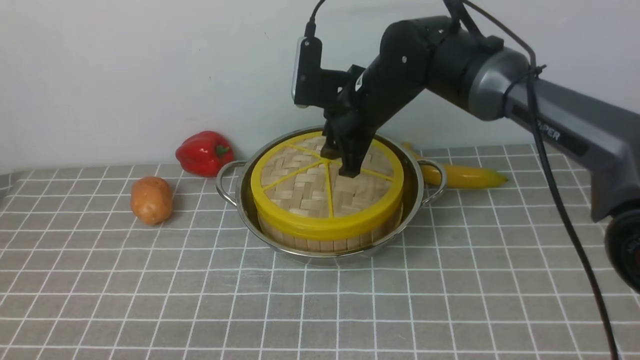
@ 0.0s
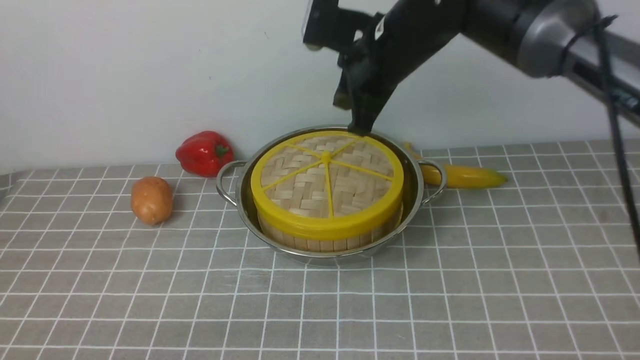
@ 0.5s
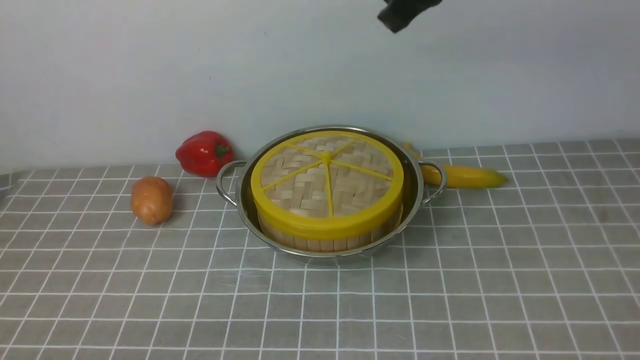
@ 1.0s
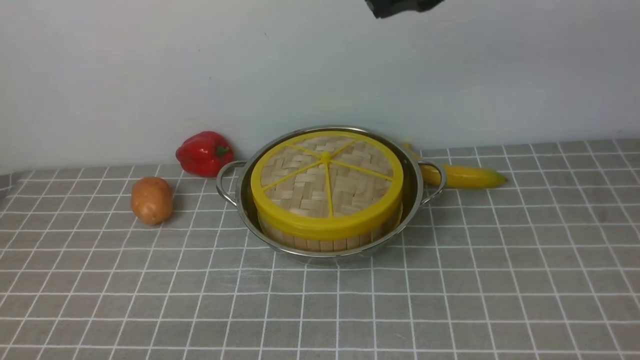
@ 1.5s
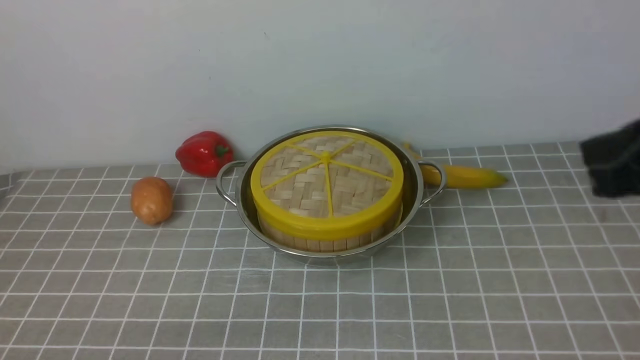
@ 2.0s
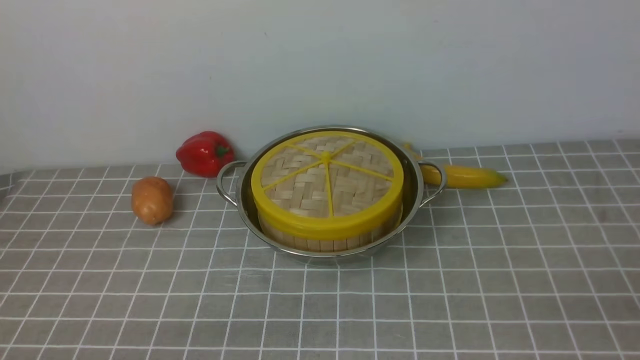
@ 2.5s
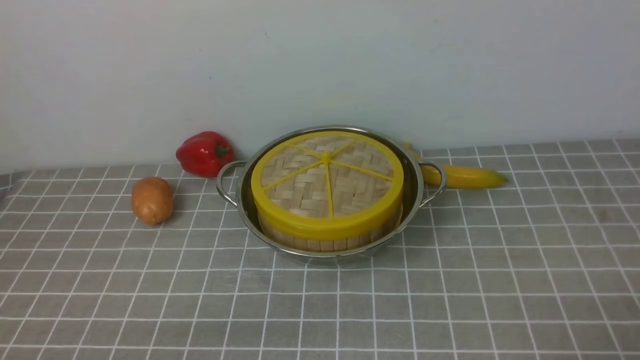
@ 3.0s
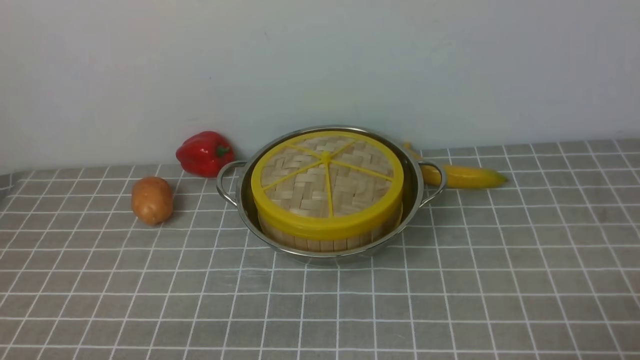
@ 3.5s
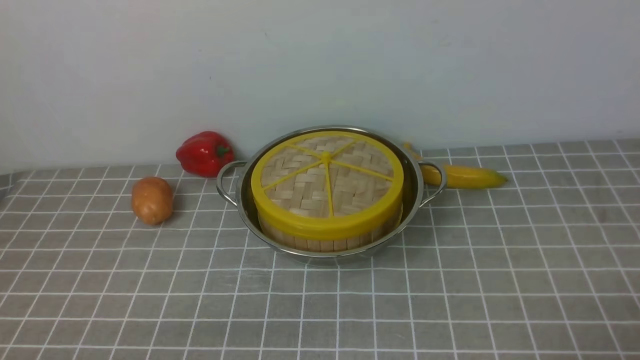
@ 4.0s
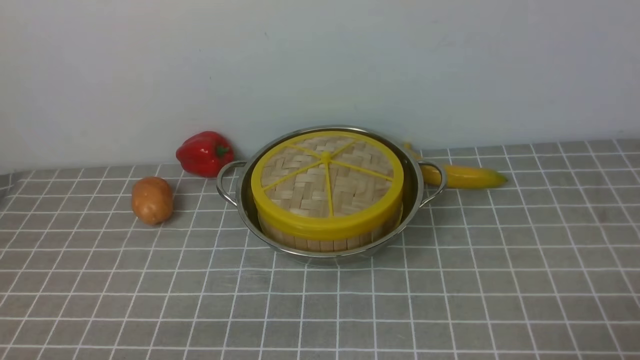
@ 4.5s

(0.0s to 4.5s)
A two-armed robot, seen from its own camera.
Task of the whole recording: place the steamer in the pot on the grey tablecloth, and put the lid on the steamer.
0.0s - 2.0s: The right gripper shifts roughly 35 cm backward, to the right and upward, and closes.
2.0s - 4.5s: The right gripper moves downward and backward, roughly 20 cm, and opens its fingers.

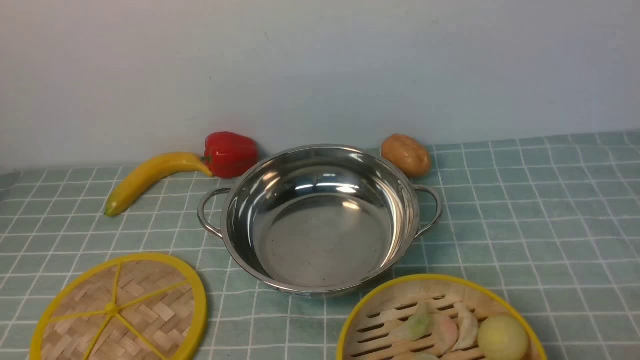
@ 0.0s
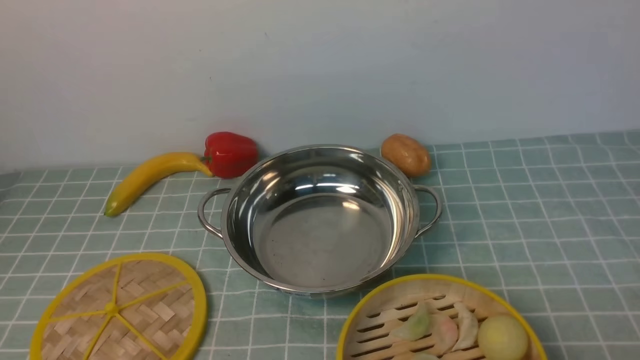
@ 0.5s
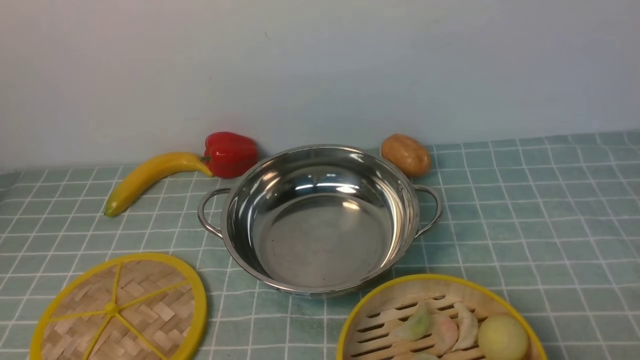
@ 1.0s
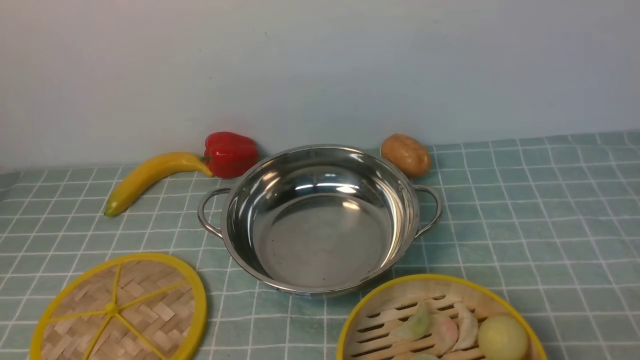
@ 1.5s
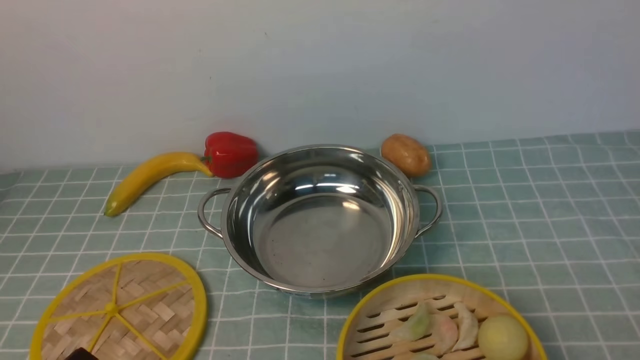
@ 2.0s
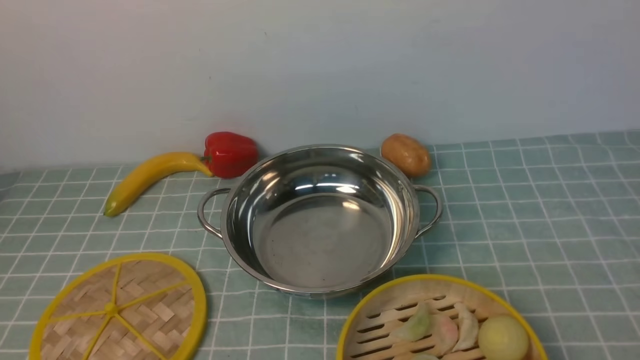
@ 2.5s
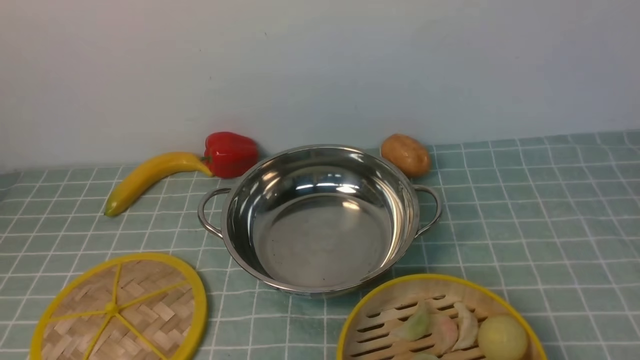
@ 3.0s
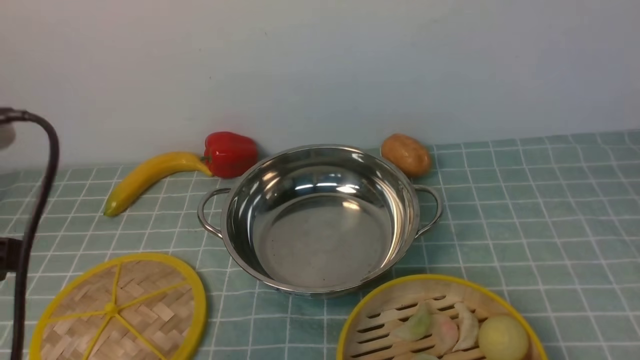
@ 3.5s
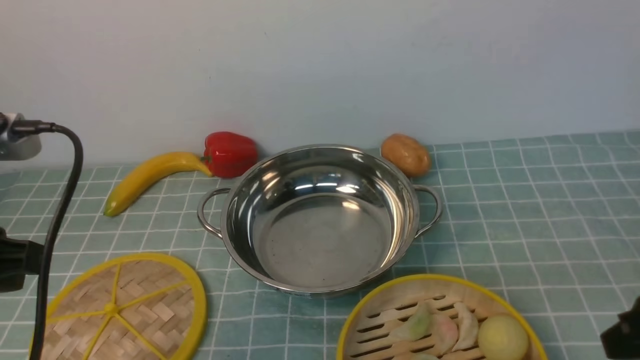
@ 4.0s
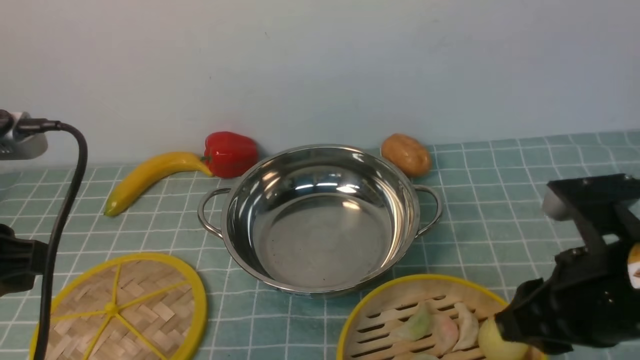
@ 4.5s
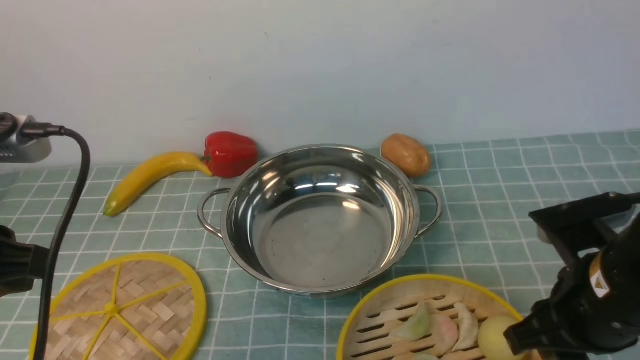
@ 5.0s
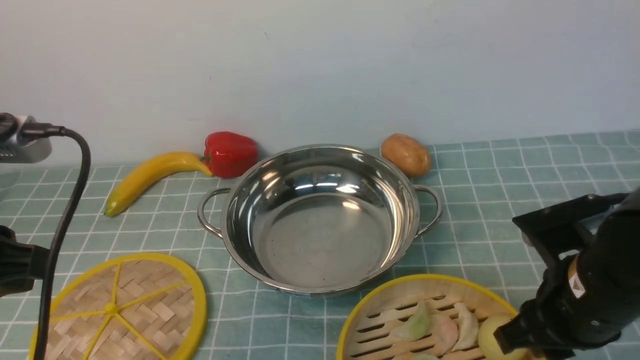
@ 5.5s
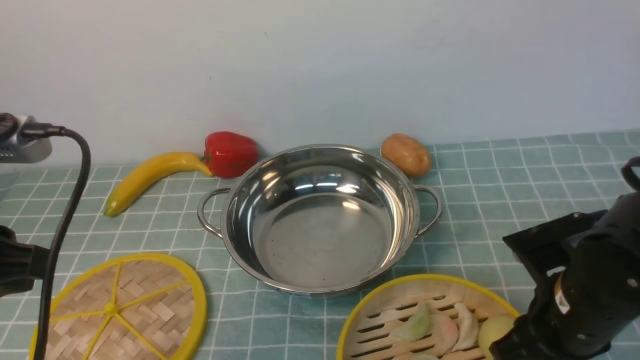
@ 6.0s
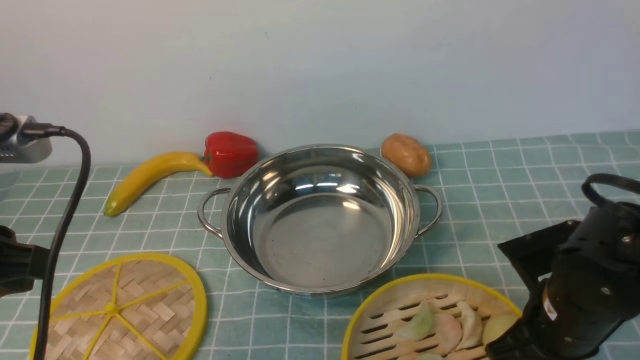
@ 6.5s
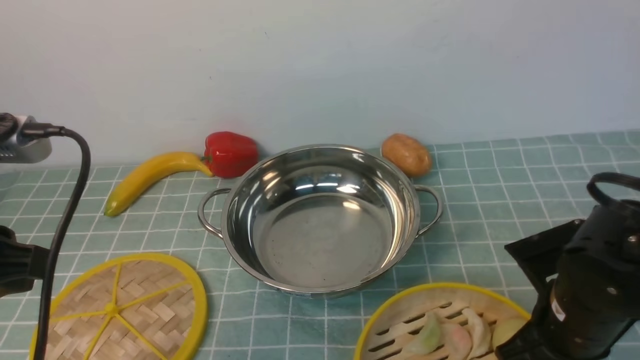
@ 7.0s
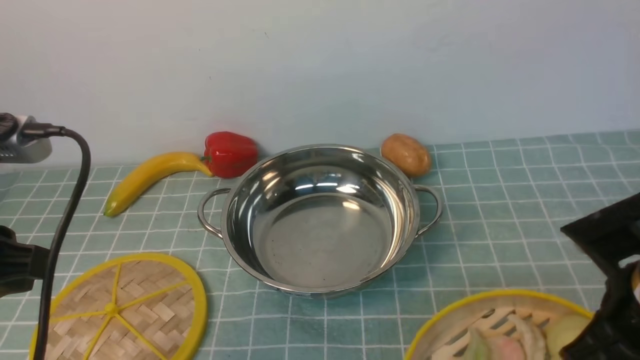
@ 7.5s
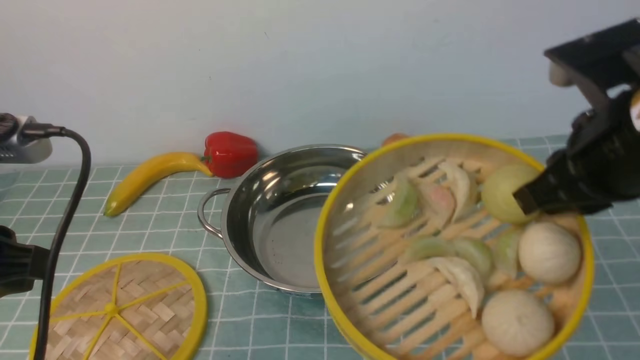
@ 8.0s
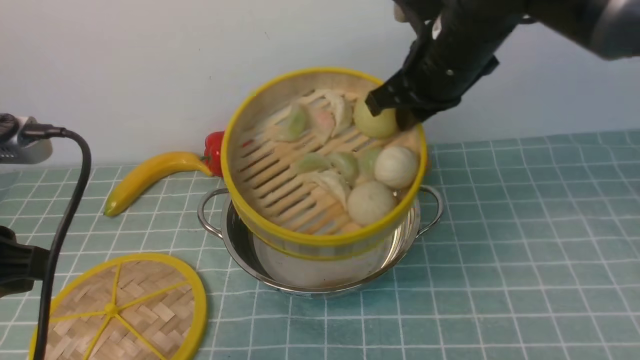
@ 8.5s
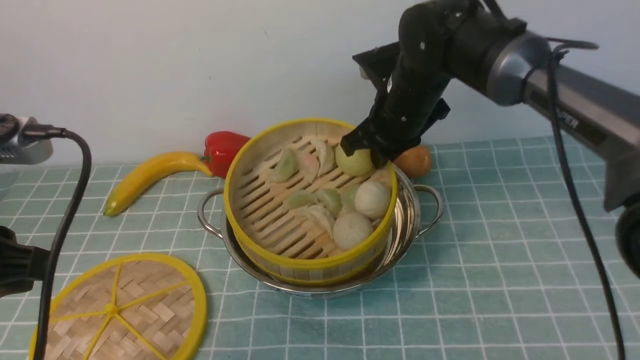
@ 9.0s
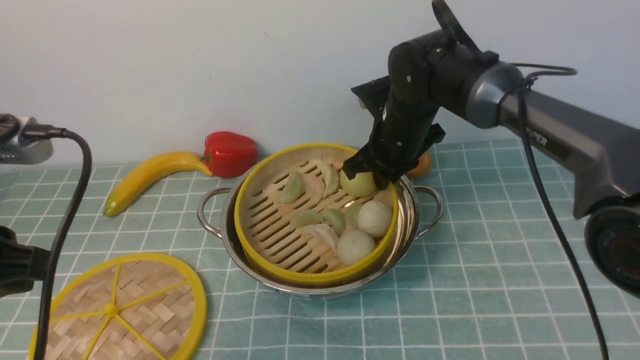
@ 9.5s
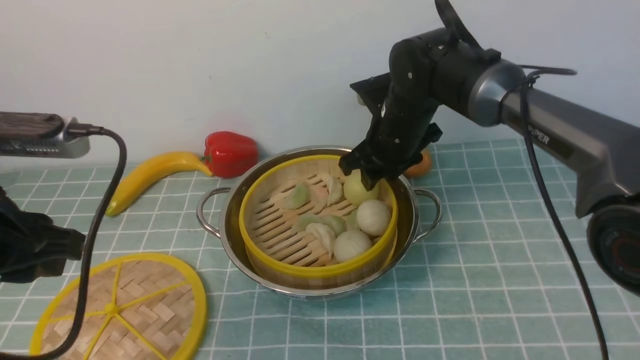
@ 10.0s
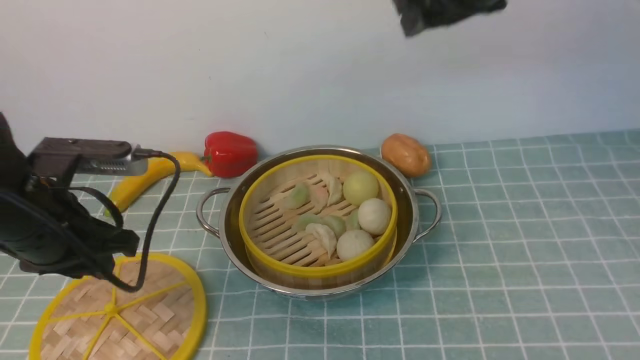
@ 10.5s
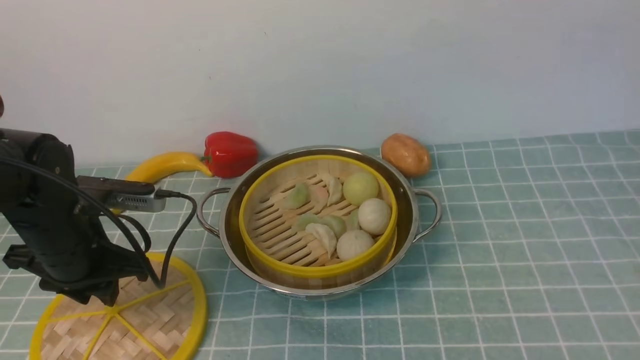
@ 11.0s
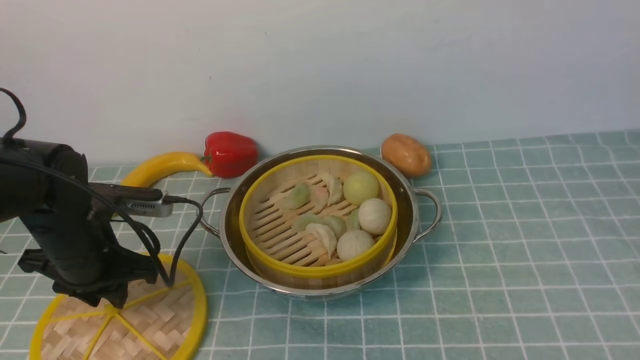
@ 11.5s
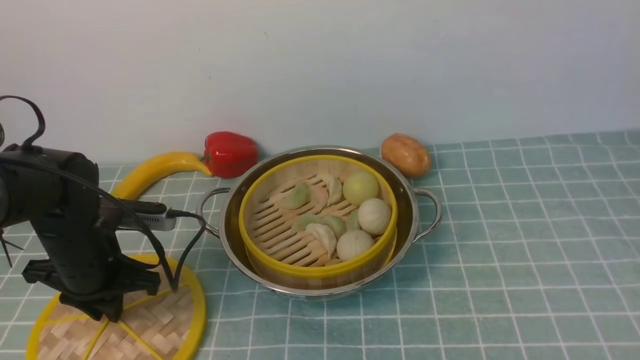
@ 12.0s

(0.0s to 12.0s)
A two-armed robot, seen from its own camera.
Task of the whole recording: place the steamer in the pot on the blue tablecloth, and put the lid on the steamer.
Step, 0.0s - 7.5s: use the right arm to lift the steamer closest to it.
Step, 8.0s - 10.0s: use the right arm to put the steamer into the iron steamer pot in the middle.
2.0s - 4.0s: The left gripper is displaced upward and forward by about 20 cm, while the right gripper heads forward, covering roughly 10 cm, and reaches approximately 25 cm upward, then returns.
4.0s - 6.0s: The right gripper goes some 10 cm downward and to the left.
6.0s - 8.0s: The right gripper shifts approximately 15 cm upward, and closes.
8.0s - 10.0s: The right gripper goes approximately 25 cm forward, downward and to the left, and opens up; the left gripper moves approximately 5 cm.
10.0s - 12.0s: The left gripper moves downward and forward, roughly 20 cm; the right gripper moves backward, upward and to the right, some 50 cm.

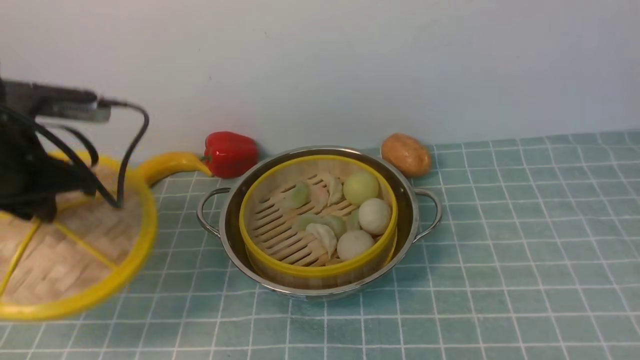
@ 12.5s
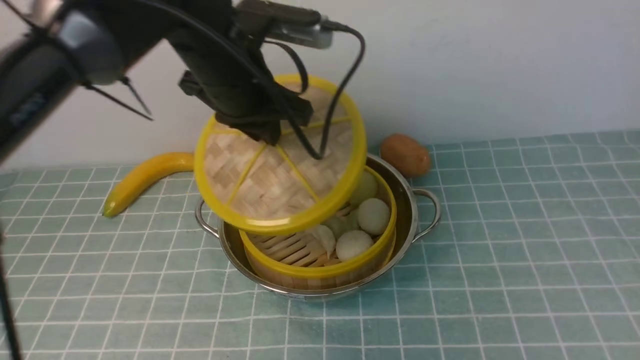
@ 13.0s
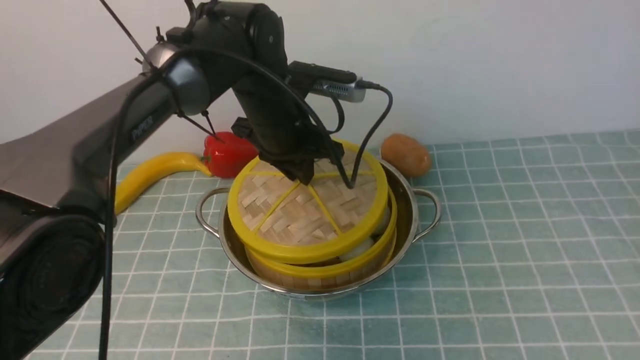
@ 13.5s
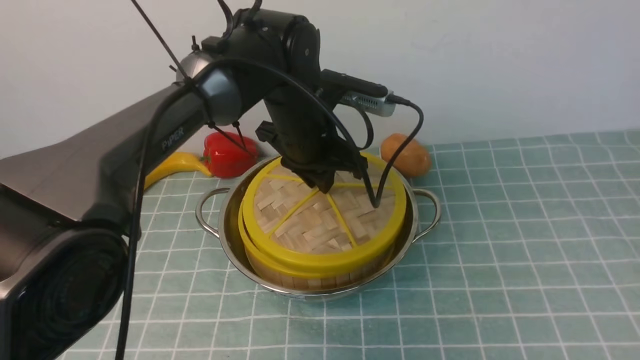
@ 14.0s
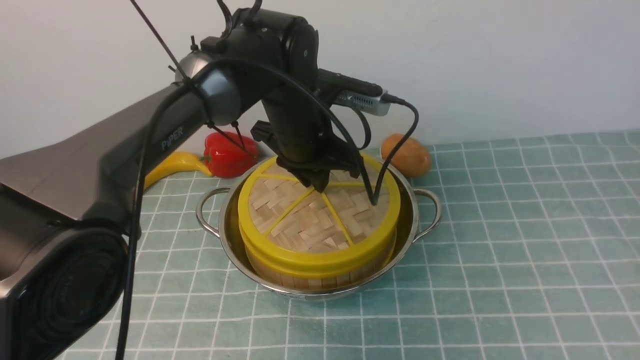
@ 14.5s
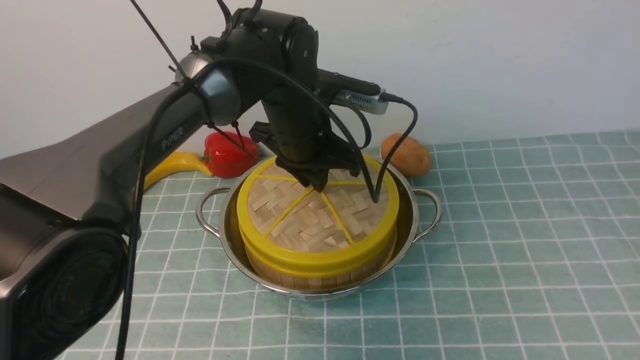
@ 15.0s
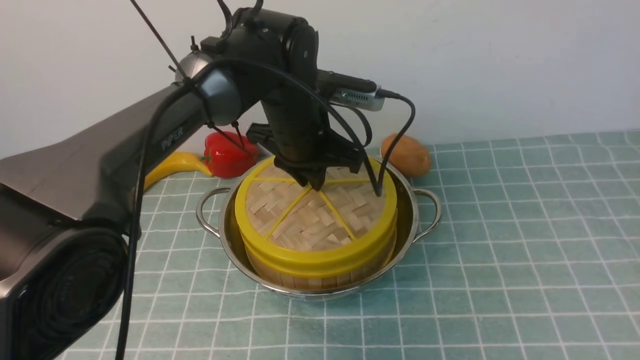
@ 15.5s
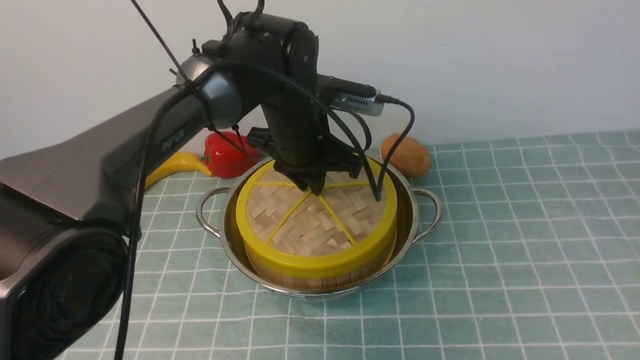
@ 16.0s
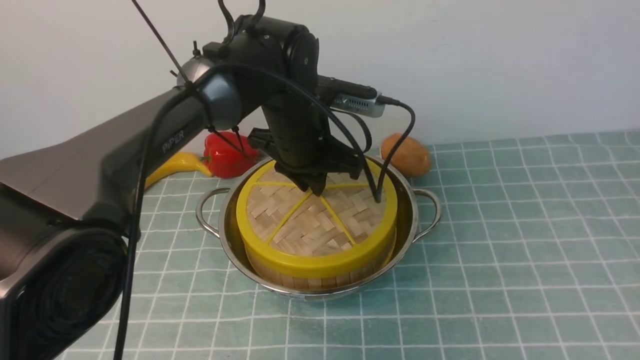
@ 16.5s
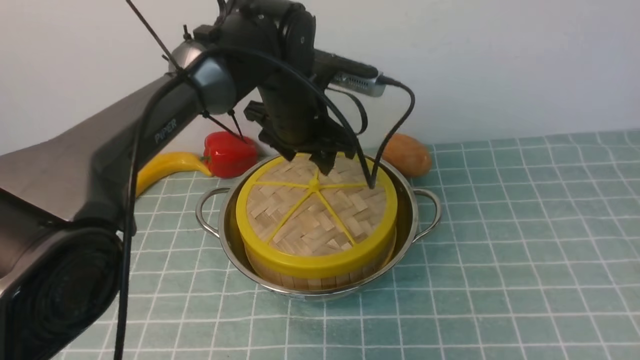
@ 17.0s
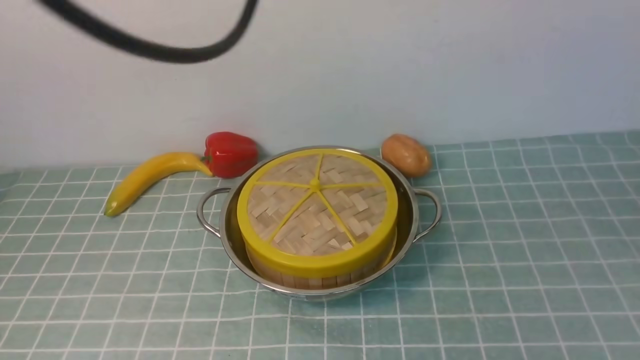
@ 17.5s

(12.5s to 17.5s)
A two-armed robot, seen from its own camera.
Task of the whole recording: place the steamer in the pot on the blue tablecloth, and put the lid on the steamer.
Step, 13.0s - 17.5s: use the left arm to place the steamer lid on the steamer.
12.5s - 15.0s: The right gripper shifts about 10 cm downward and backward. The left gripper heads to the right and forward, covering about 25 cm.
15.0s - 17.5s: The right gripper goes about 5 cm downward, and closes up, while the left gripper goes some 30 cm upward and backward, and opens, then closes once more.
